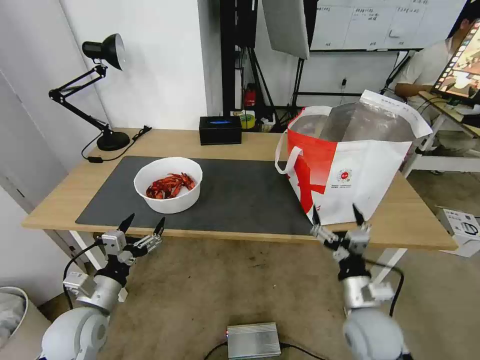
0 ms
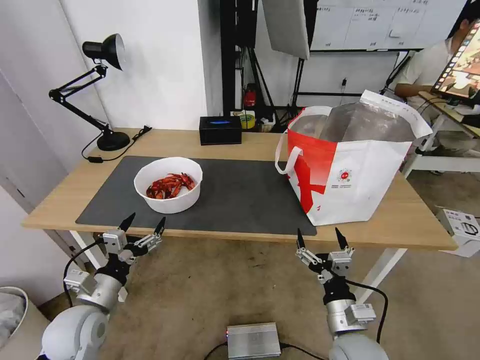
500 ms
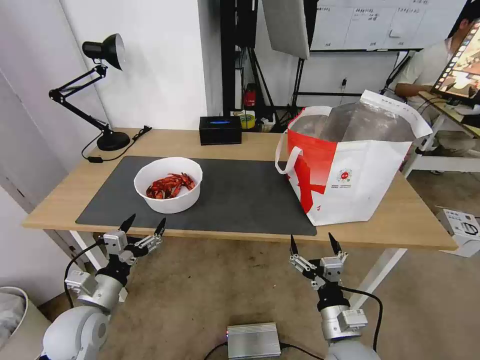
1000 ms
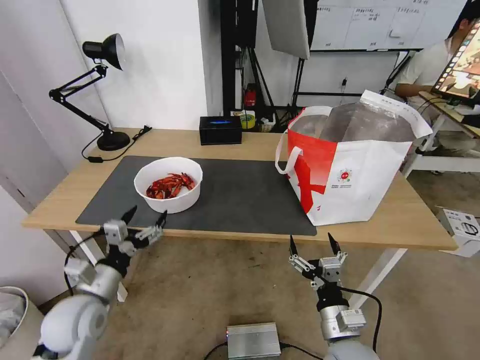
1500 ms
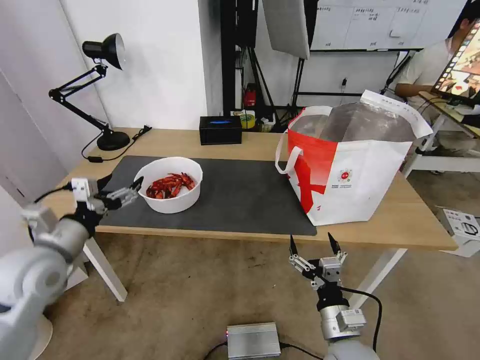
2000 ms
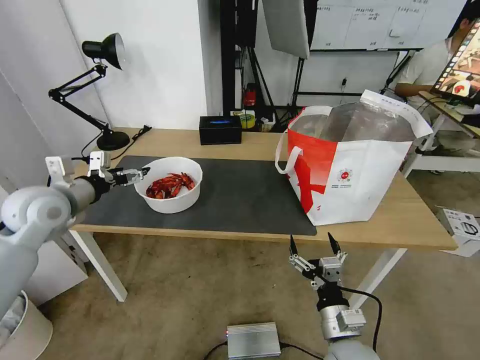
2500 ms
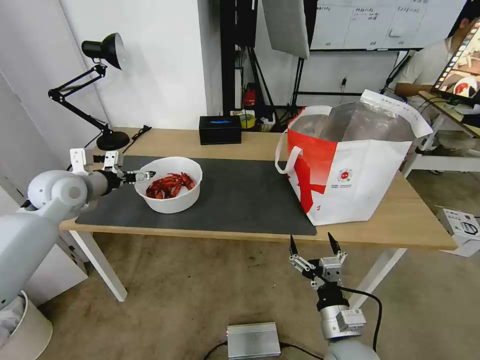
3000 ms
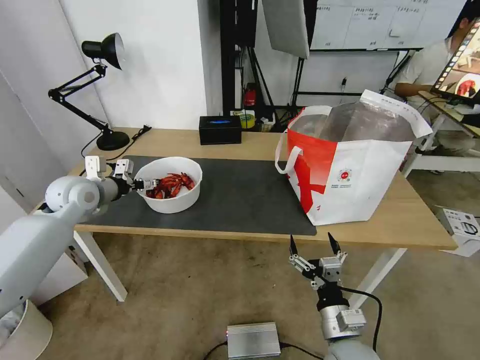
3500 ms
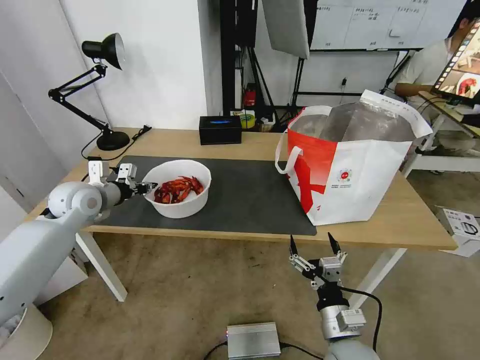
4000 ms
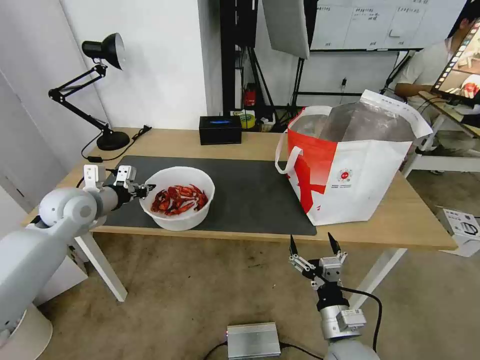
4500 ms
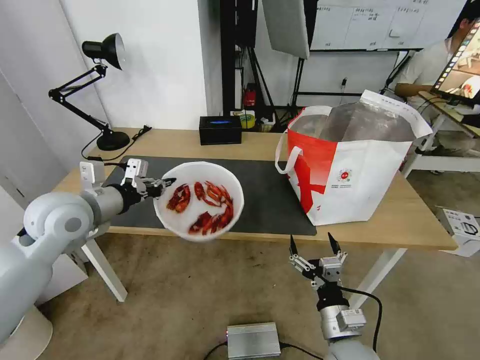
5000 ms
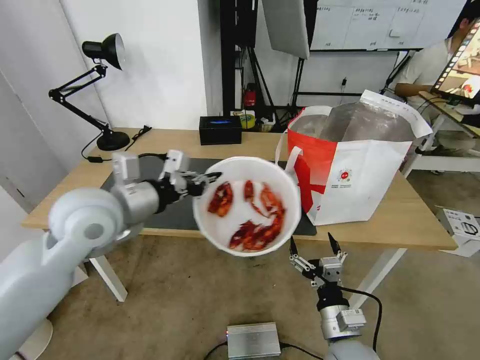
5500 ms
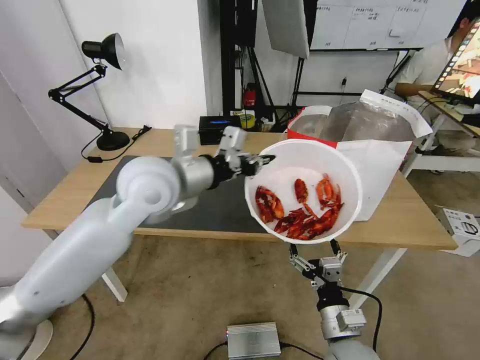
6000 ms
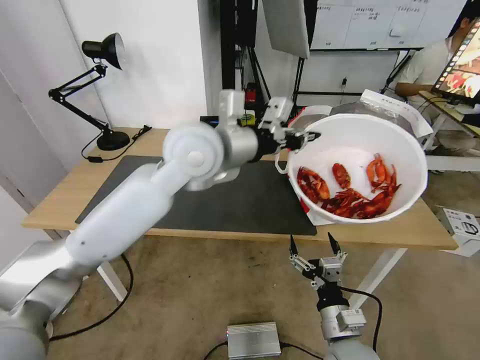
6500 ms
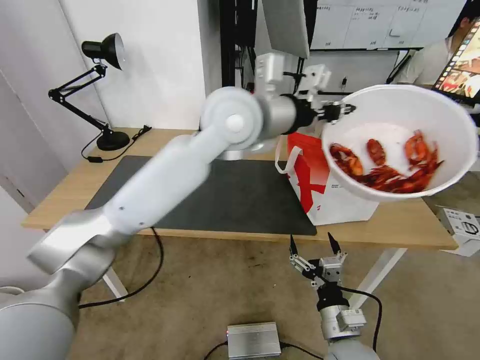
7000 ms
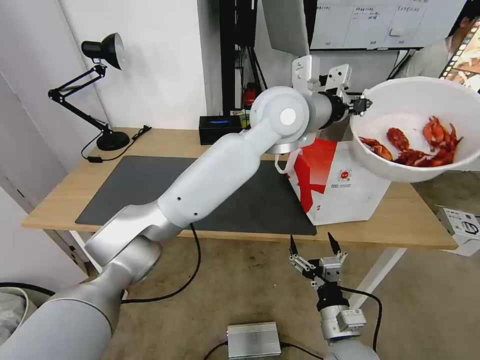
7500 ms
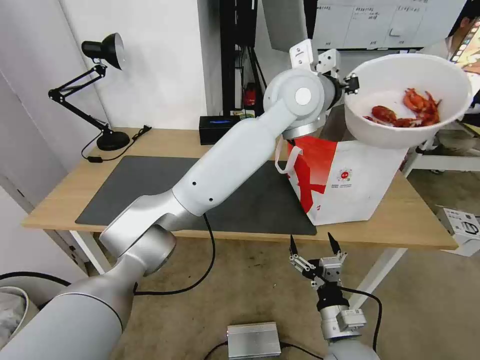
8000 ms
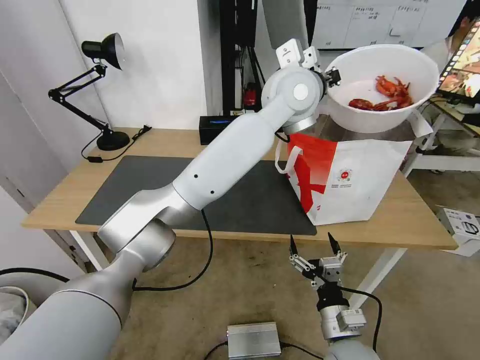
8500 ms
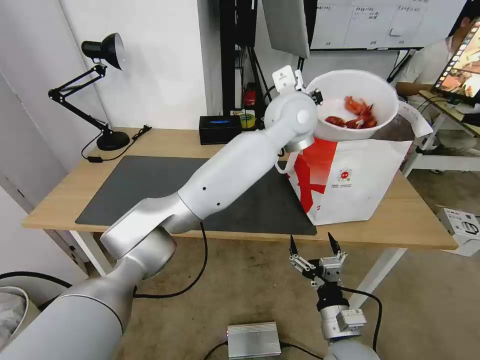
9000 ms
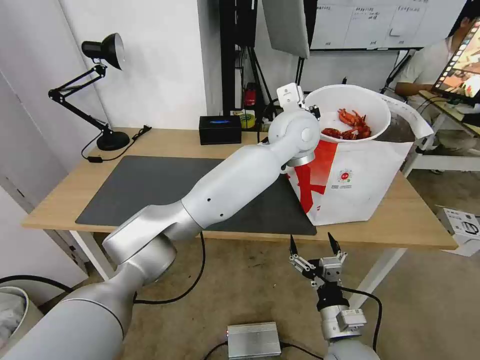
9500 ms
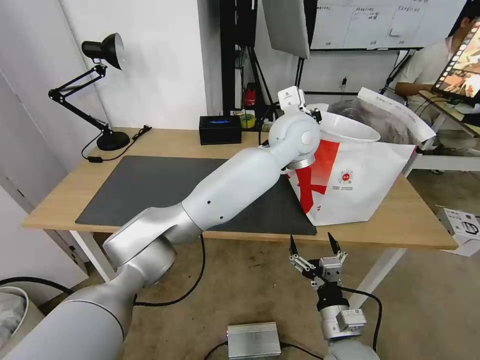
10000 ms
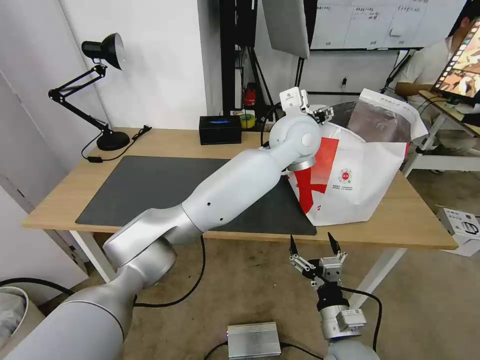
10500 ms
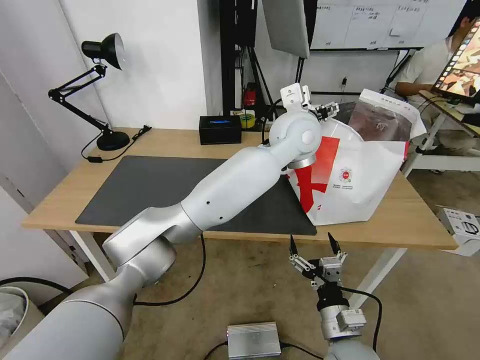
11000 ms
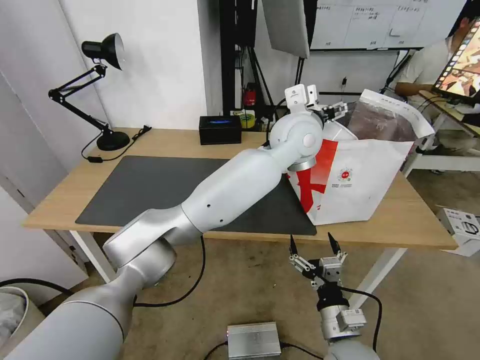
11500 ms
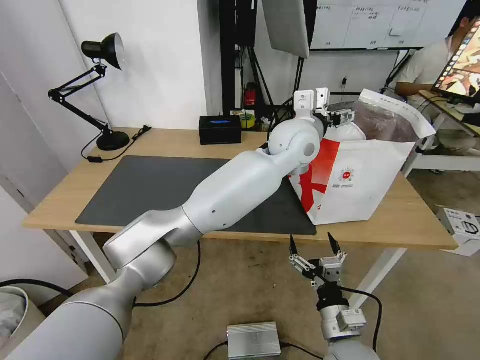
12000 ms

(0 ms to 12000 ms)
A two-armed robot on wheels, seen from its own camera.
Task of the whole recording: Pick up the trash from the table and place it into the takeout bag.
0 ms - 2000 ms: The right gripper shifts by roughly 5 cm. The left gripper heads upward and forward, covering about 15 cm.
2000 ms - 4000 ms: The left gripper moves forward, approximately 15 cm, and closes.
4000 ms - 6000 ms: The left gripper travels to the right and upward by some 25 cm.
6000 ms - 8000 ms: The left gripper shifts roughly 25 cm to the right, forward and upward.
8000 ms - 10000 ms: The left gripper goes roughly 10 cm downward, and opens up.
10000 ms - 12000 ms: The left gripper opens.

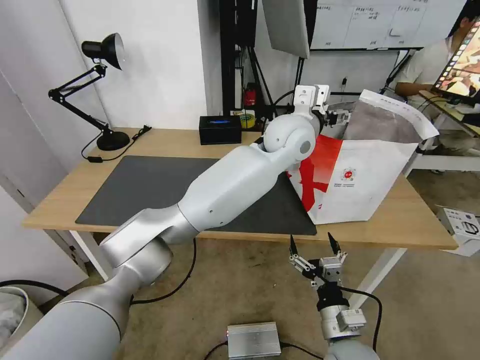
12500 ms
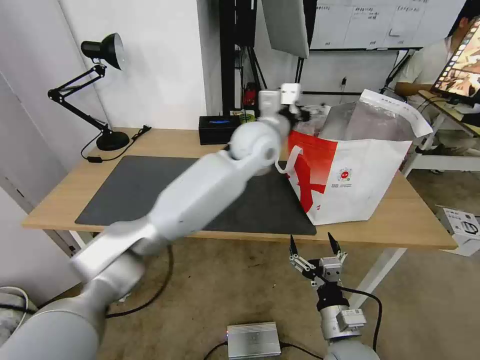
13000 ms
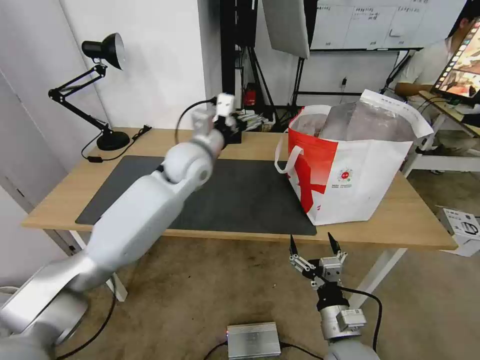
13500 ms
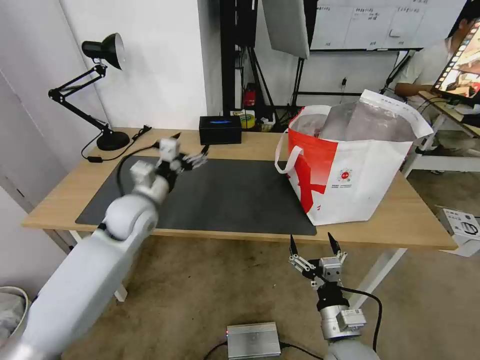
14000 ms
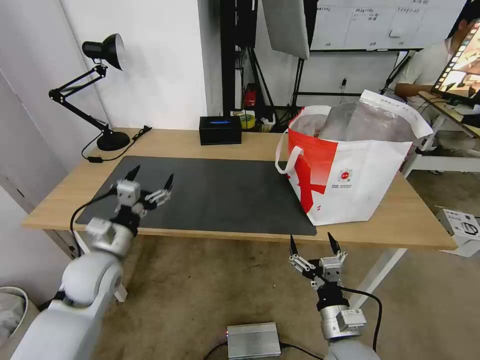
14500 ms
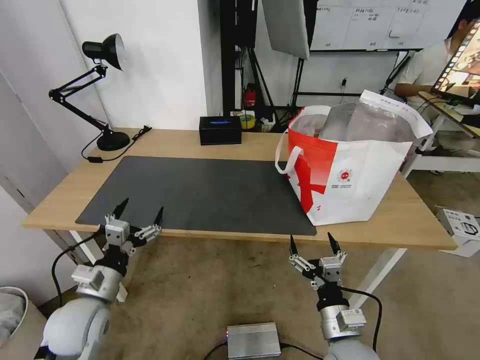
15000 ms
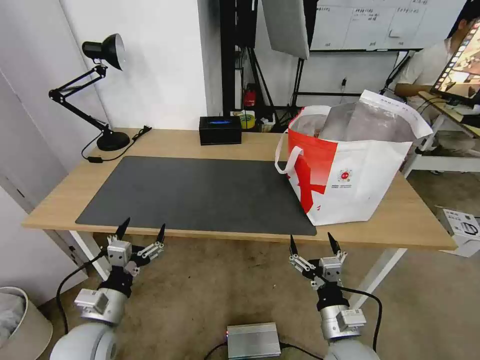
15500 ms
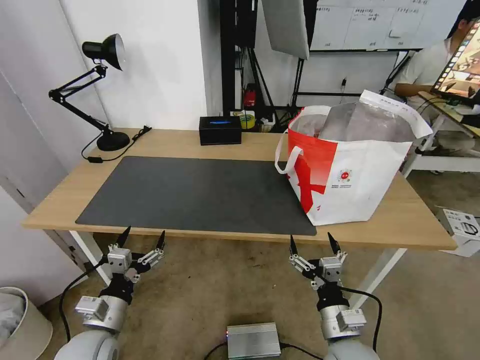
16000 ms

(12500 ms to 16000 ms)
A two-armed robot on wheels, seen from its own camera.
Task of the whole recording: Pick up the trash from the table and place it into the takeout bag.
12500 ms - 14500 ms: The left gripper shifts about 50 cm to the left, downward and backward.
14500 ms - 16000 ms: The left gripper travels backward and downward by some 15 cm.

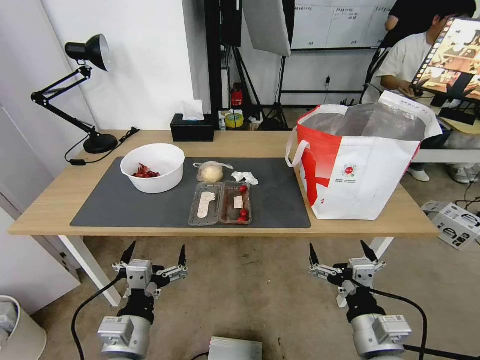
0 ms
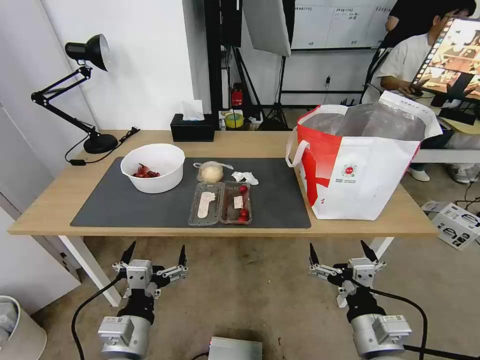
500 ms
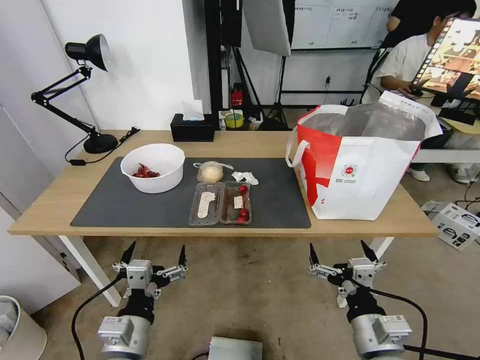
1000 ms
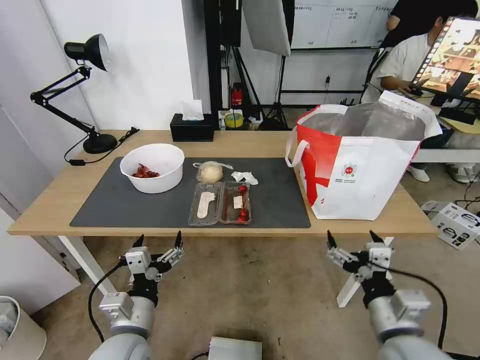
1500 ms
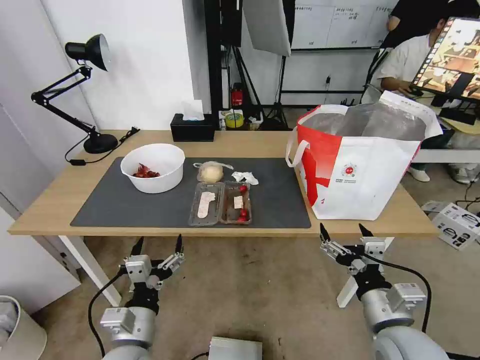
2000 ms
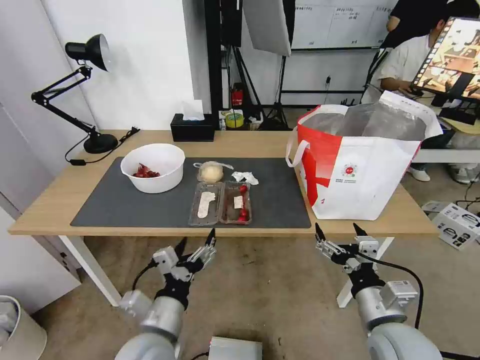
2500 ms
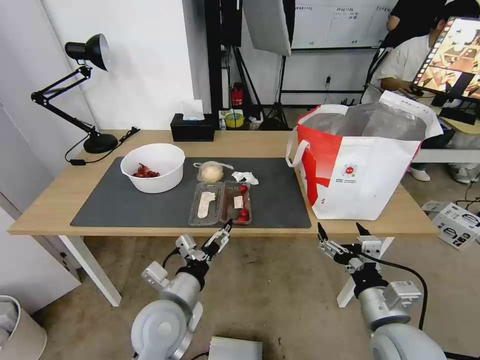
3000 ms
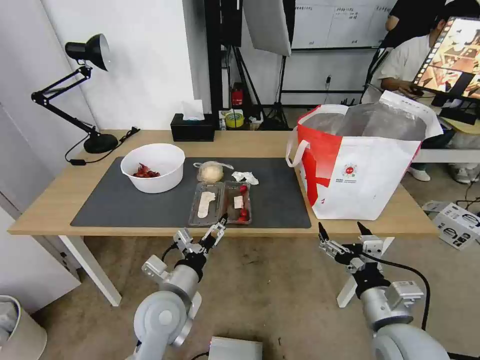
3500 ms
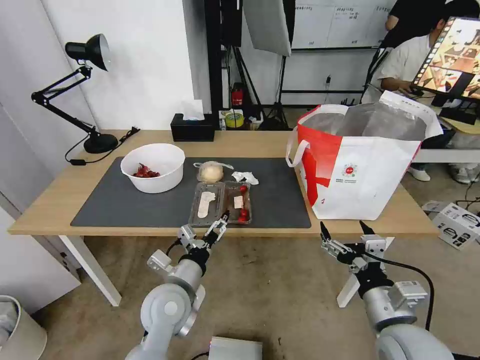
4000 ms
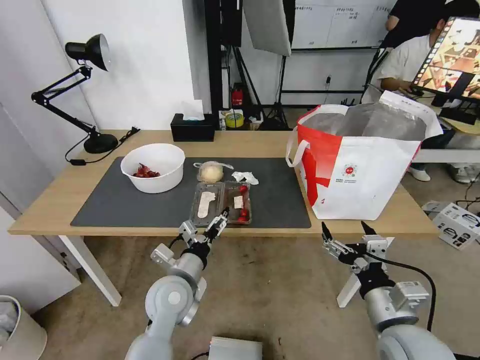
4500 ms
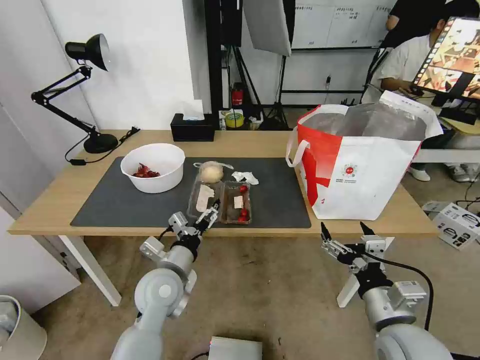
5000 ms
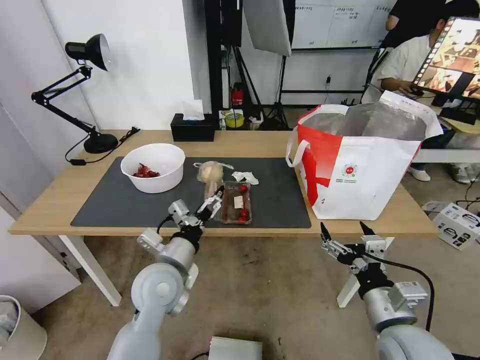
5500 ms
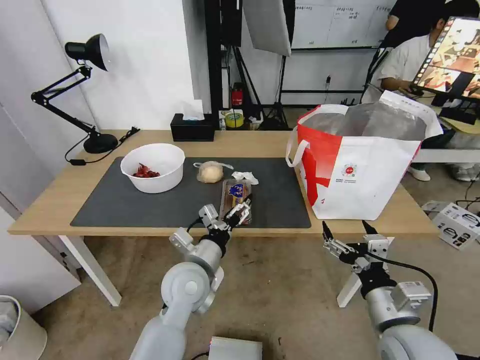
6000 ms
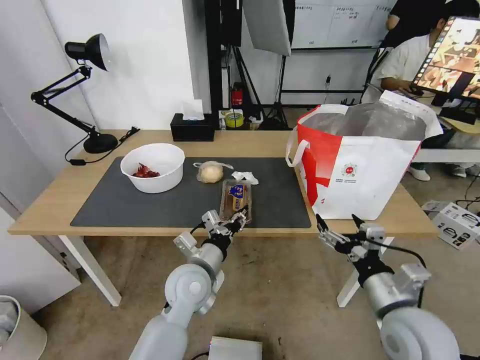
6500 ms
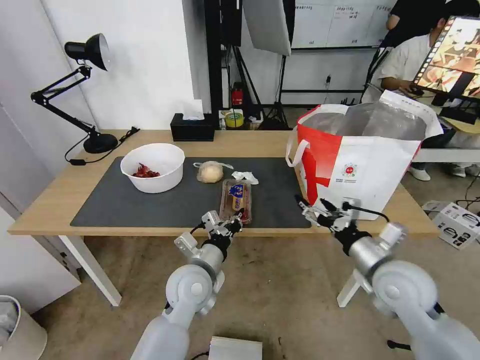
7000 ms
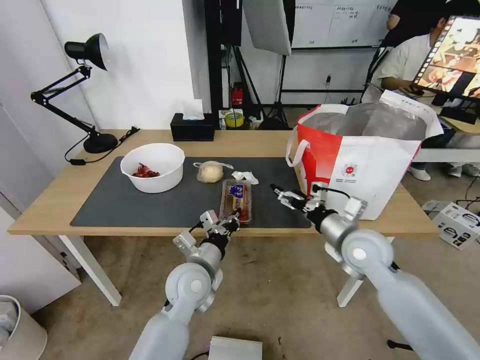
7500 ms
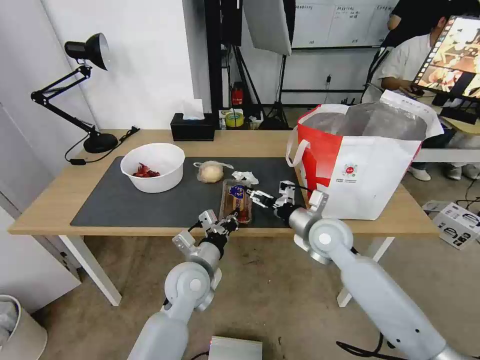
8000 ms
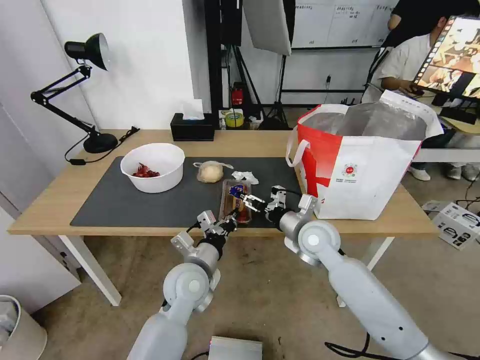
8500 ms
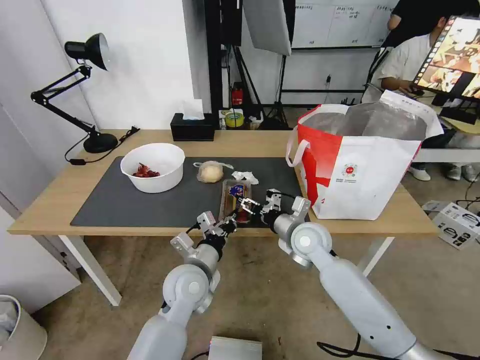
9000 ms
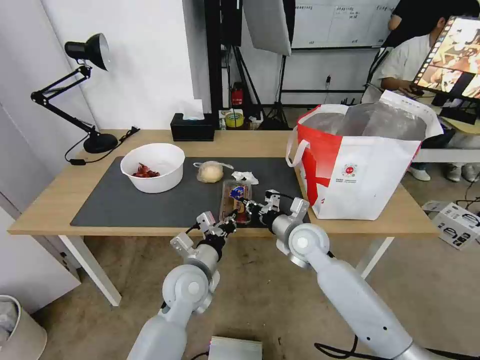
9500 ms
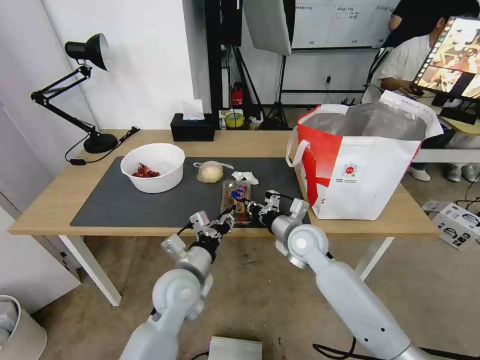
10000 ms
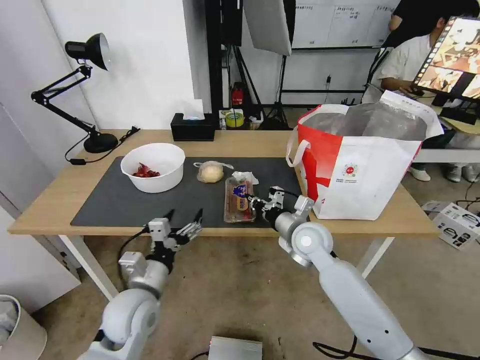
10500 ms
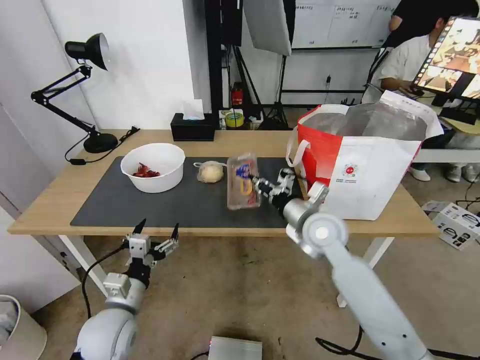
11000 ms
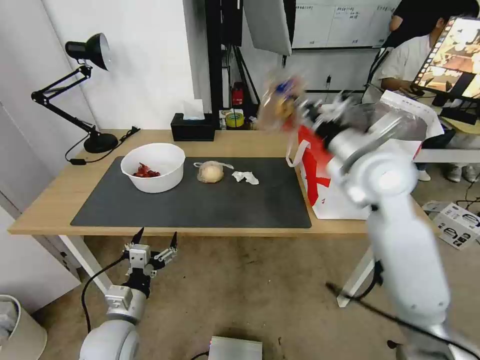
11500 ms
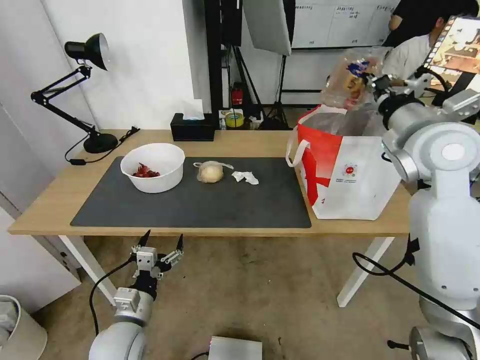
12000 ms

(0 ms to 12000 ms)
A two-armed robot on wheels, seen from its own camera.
Task of the whole recording: Pick up the trash from the table and place it into the takeout bag.
2000 ms - 4000 ms: The left gripper heads forward and to the right, covering about 10 cm.
4000 ms - 6000 ms: The left gripper ends up some 5 cm from where it was.
6000 ms - 8000 ms: The right gripper heads forward, covering approximately 20 cm. The left gripper closes its fingers.
8000 ms - 10000 ms: The right gripper shifts some 5 cm to the left, and closes up, while the left gripper opens up.
10000 ms - 12000 ms: The right gripper travels upward and to the right by some 30 cm. Meanwhile the left gripper shifts roughly 15 cm to the left, backward and downward, and opens up.
